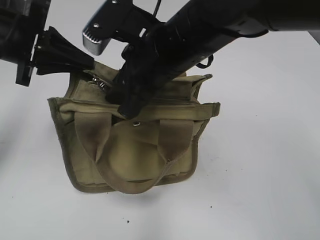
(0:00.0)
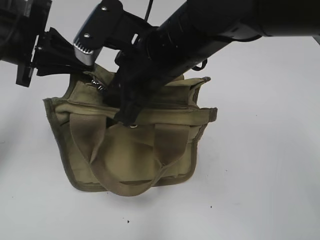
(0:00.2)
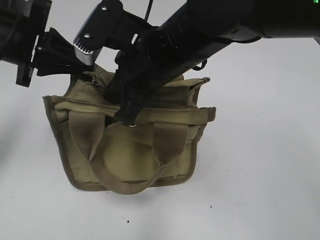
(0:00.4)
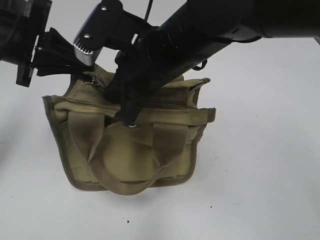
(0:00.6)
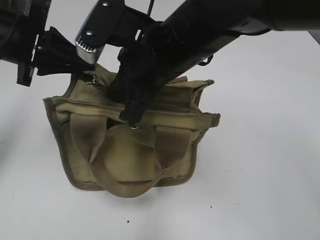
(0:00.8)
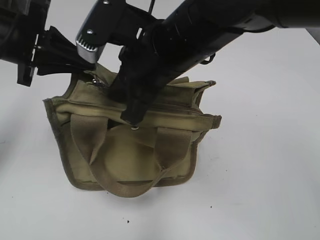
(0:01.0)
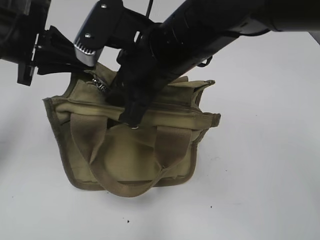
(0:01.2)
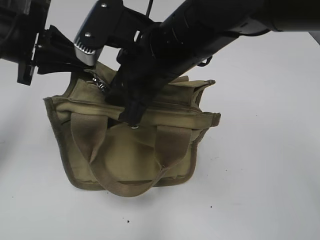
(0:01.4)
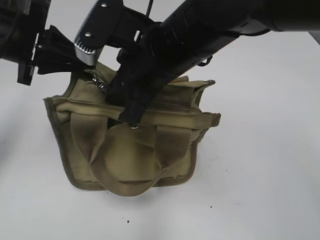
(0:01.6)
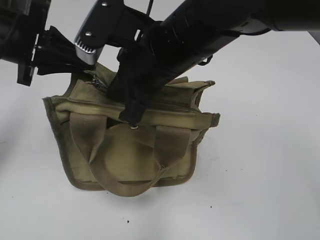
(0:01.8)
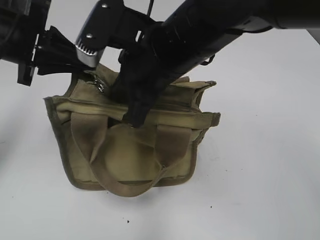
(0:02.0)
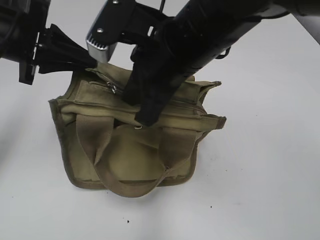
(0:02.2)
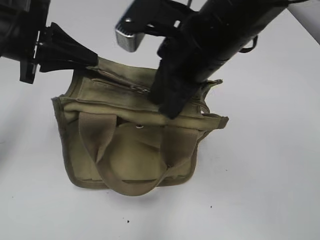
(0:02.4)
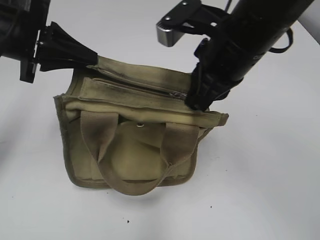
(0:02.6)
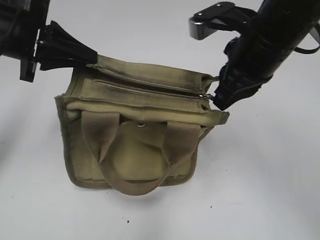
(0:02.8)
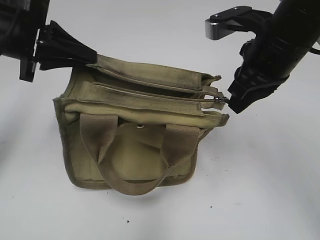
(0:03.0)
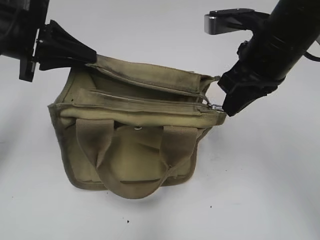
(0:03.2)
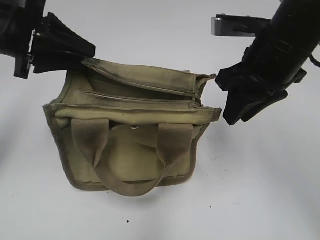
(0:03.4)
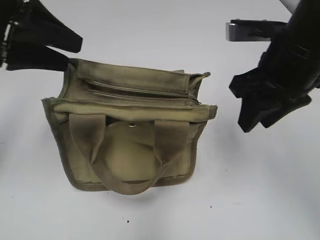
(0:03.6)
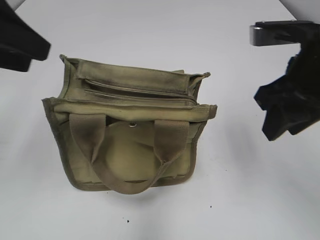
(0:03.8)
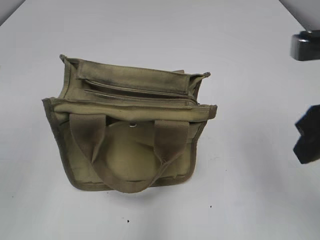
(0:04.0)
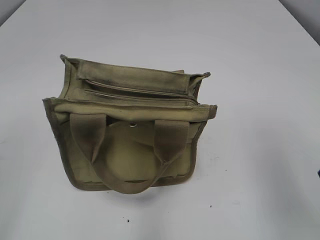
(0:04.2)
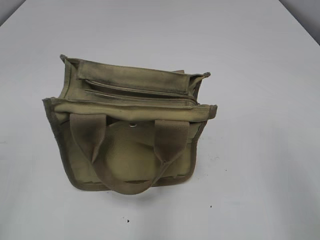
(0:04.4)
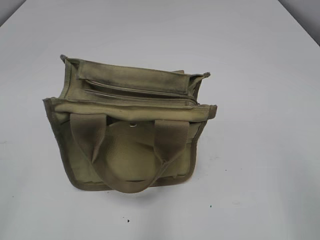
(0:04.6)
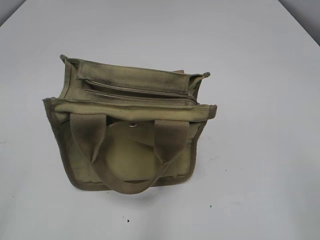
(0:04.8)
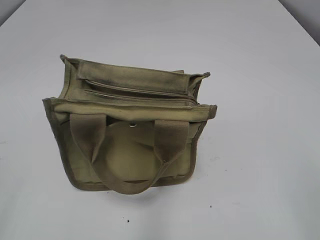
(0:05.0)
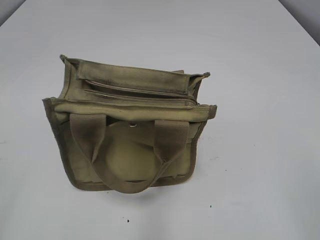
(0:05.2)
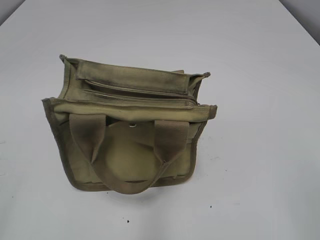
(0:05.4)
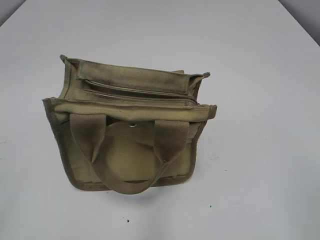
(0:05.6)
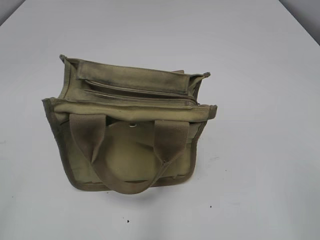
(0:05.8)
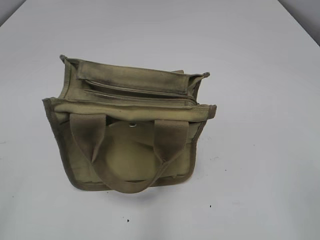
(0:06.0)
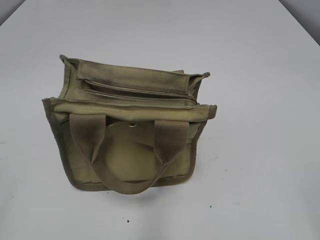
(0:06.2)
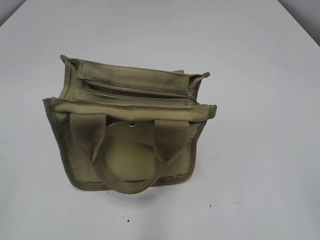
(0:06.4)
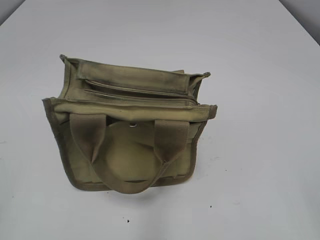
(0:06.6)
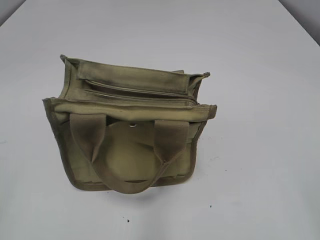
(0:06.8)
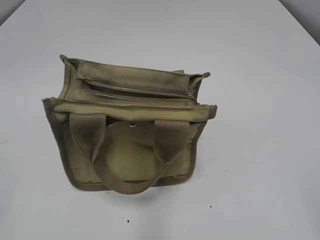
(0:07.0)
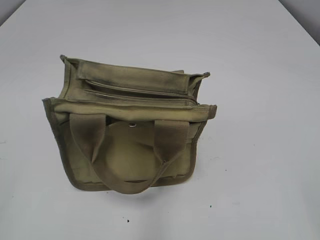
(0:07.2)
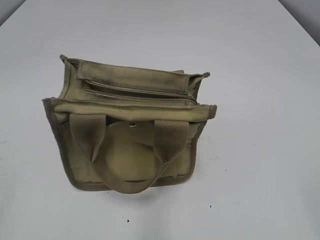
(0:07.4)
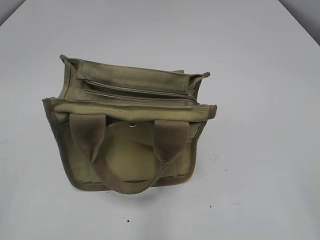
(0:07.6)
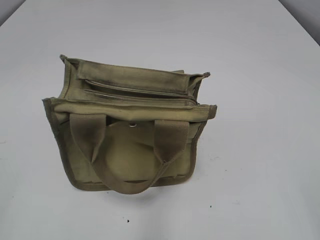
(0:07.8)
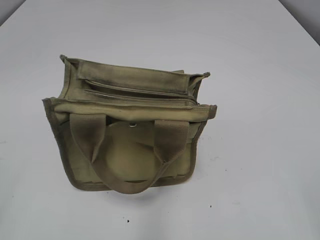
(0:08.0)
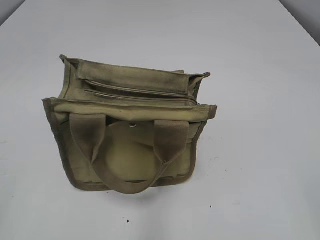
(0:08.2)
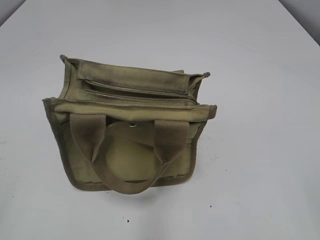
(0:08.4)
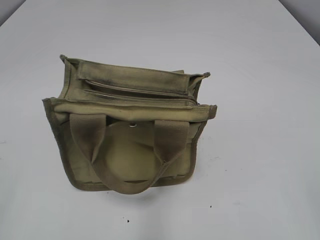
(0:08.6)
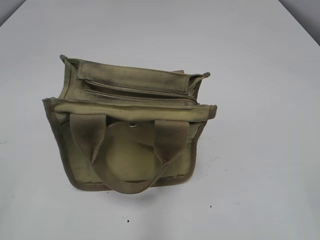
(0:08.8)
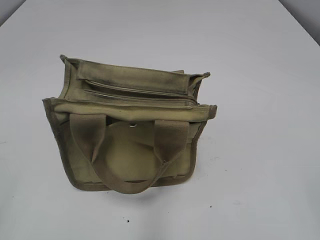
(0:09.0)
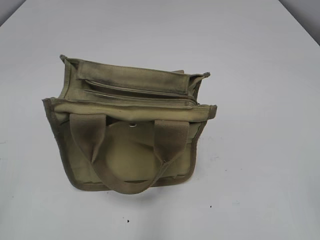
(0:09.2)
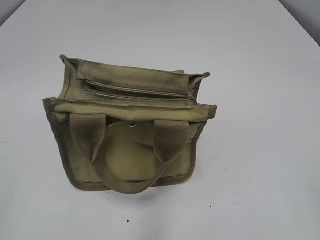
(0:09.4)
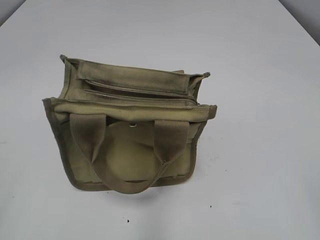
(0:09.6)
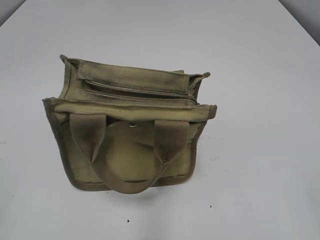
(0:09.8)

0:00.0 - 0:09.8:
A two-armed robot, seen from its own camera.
Step, 0:00.0 - 0:03.2: Pull open the zipper with your right hand.
Step, 0:03.4 - 0:03.6: Hold the bag with your left hand.
0:00.0 - 0:01.4: The right gripper closes and opens again.
0:01.4 - 0:02.8: The right gripper moves to the right, some 10 cm, and closes its fingers.
0:02.8 - 0:04.2: The right gripper moves backward and to the right, approximately 15 cm, and opens its fingers; the left gripper moves backward and to the left, about 20 cm, and opens up.
0:04.2 - 0:05.6: The right gripper is displaced backward by about 15 cm.
0:07.0 - 0:09.8: Both grippers stay about where they are.
